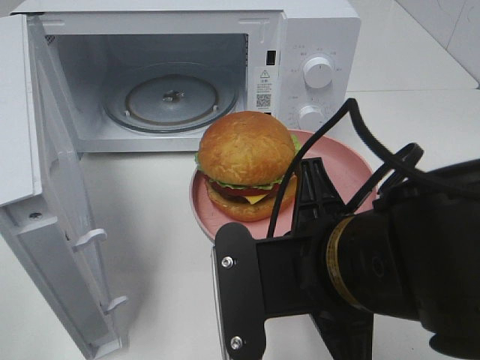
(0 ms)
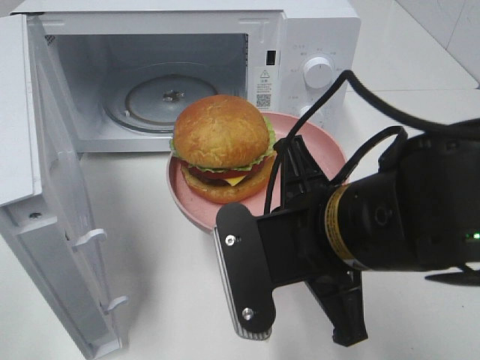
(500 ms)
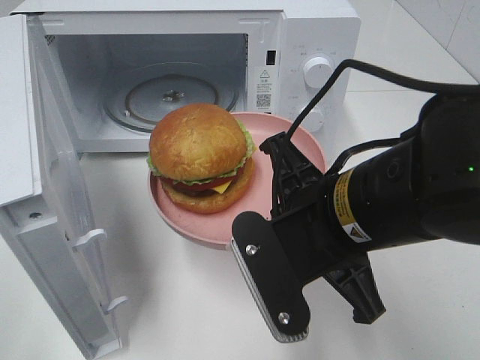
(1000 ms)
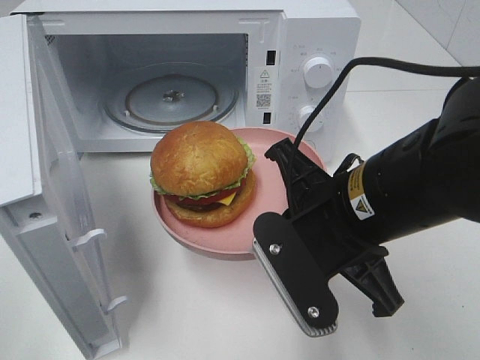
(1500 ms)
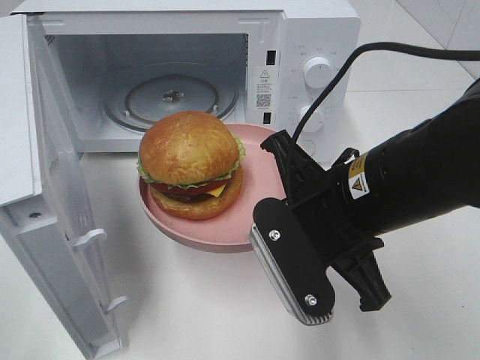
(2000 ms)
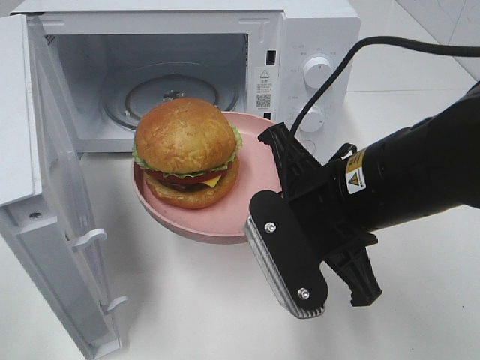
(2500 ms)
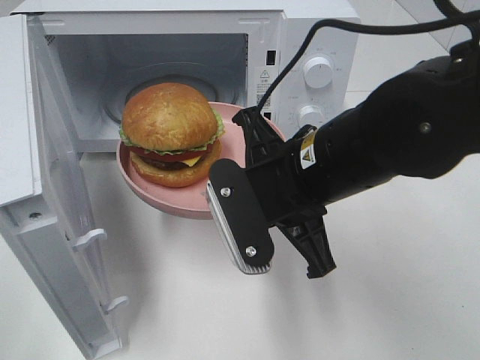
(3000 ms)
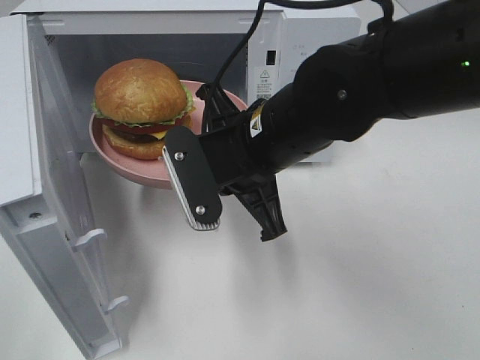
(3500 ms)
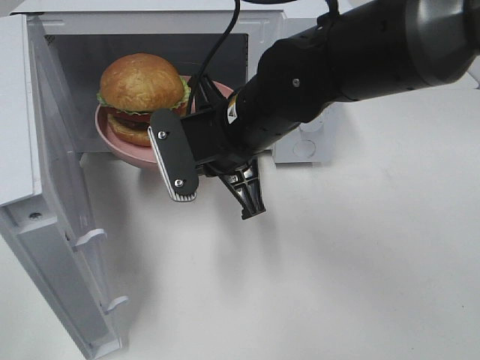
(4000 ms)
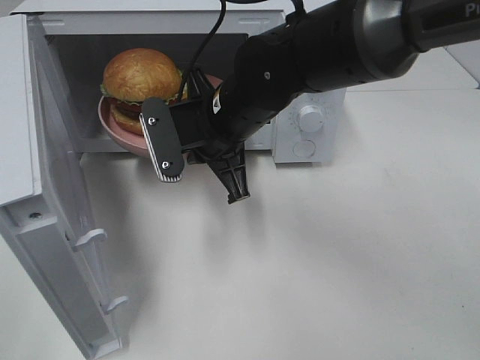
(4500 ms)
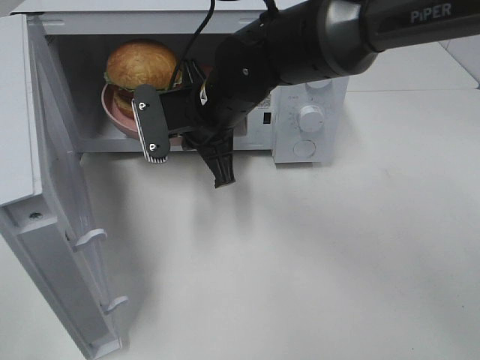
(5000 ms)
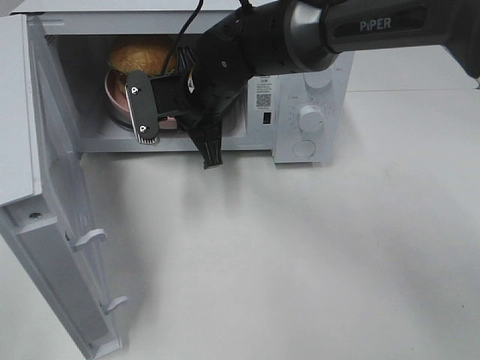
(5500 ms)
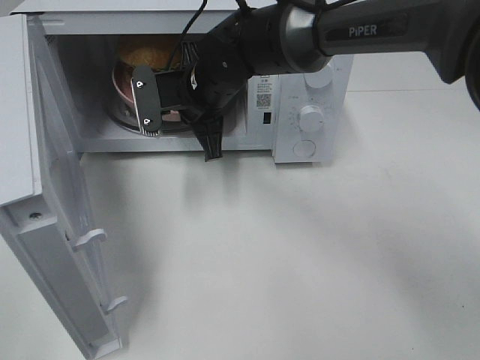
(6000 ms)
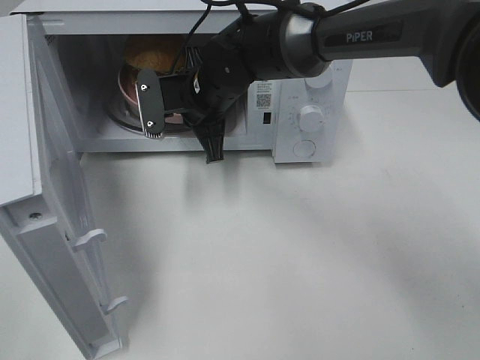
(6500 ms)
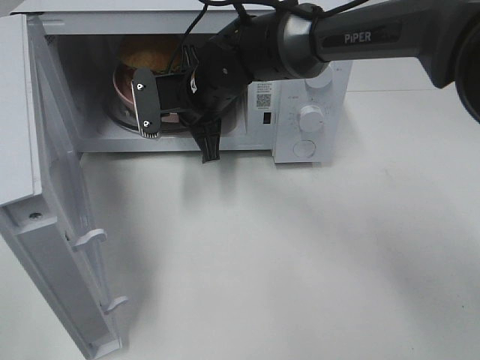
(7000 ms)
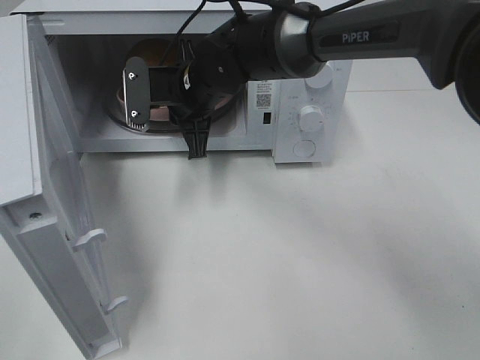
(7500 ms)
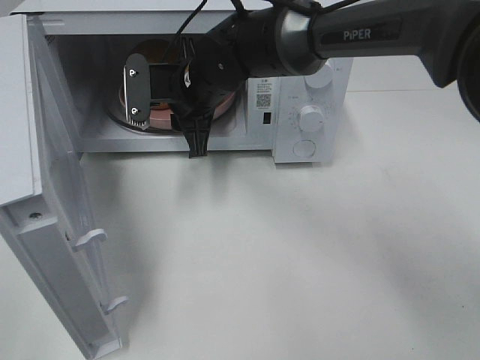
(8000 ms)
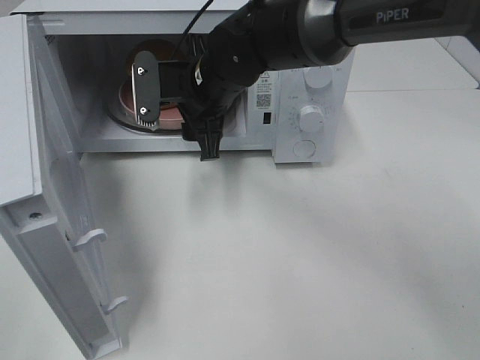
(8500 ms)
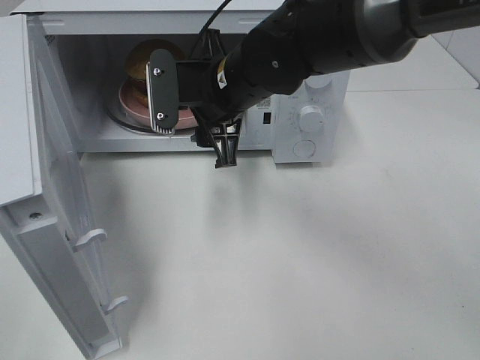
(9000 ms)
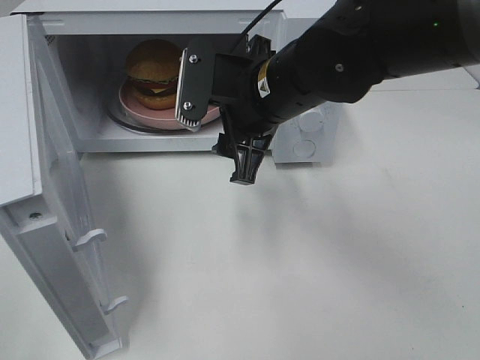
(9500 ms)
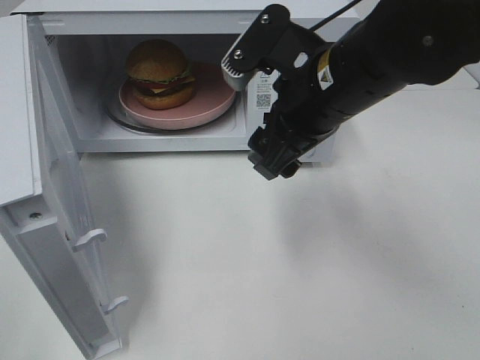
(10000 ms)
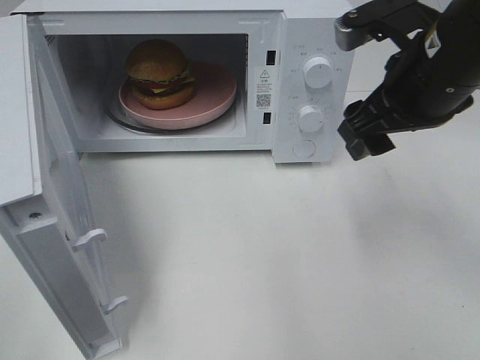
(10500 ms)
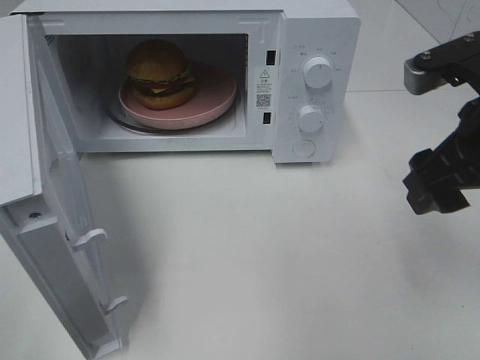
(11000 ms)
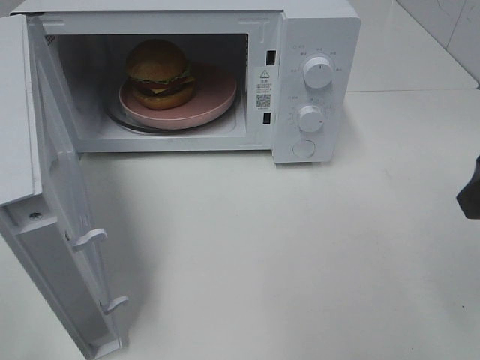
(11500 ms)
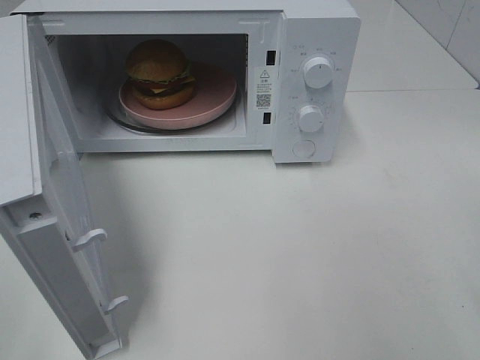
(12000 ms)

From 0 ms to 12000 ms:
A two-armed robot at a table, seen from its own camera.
Task of the whole recording: Heat the burger.
Step, from 0 ms to 7500 ms: Right hand: place the plate in the microwave.
From 0 ms to 2000 ms: The right gripper goes roughly 5 cm forward.
From 2000 ms to 4000 ms: The right gripper travels forward and to the left by about 15 cm.
From 4000 ms to 6000 ms: The right gripper heads forward, covering roughly 10 cm.
From 6000 ms to 8000 ms: The right gripper opens up.
From 8000 ms to 10000 ms: The right gripper moves to the right, backward and upward, approximately 20 cm, and opens.
From 10000 ms to 12000 ms: The right gripper moves to the right and backward, approximately 25 cm.

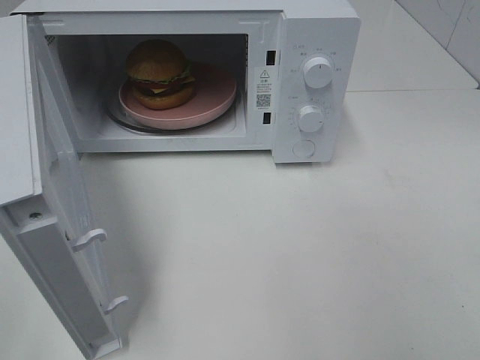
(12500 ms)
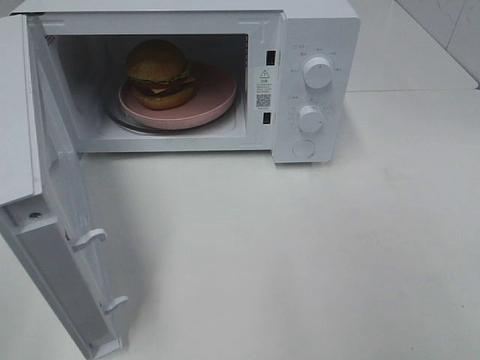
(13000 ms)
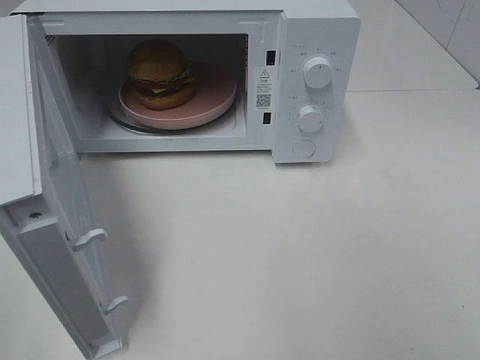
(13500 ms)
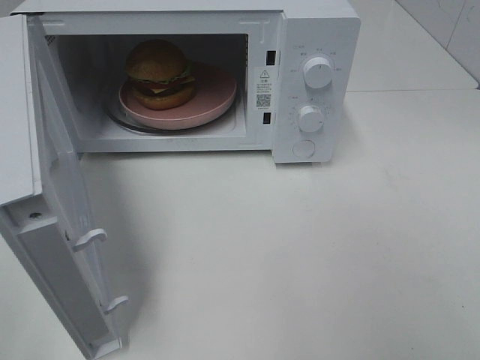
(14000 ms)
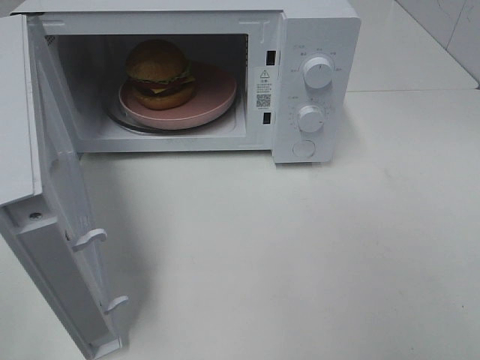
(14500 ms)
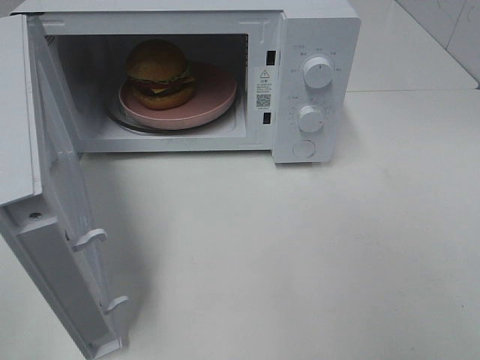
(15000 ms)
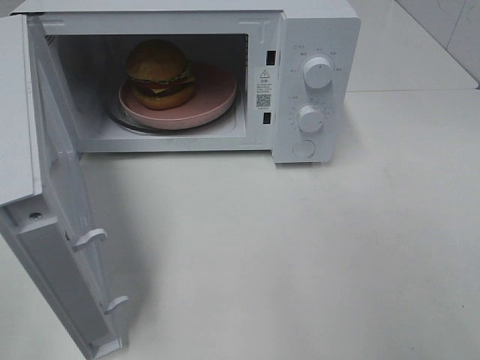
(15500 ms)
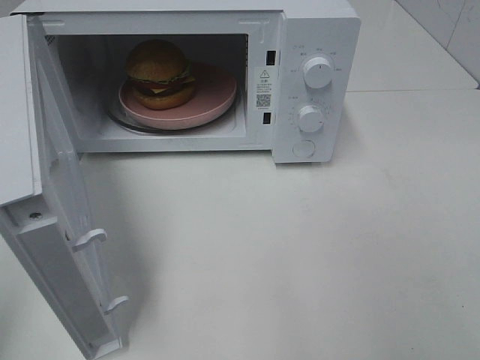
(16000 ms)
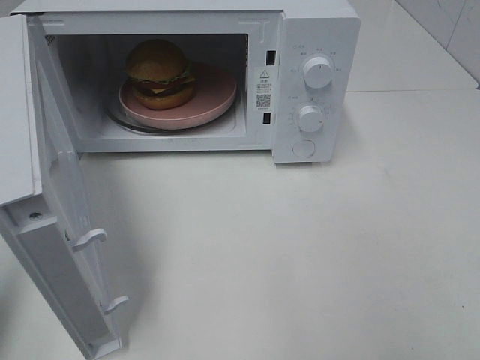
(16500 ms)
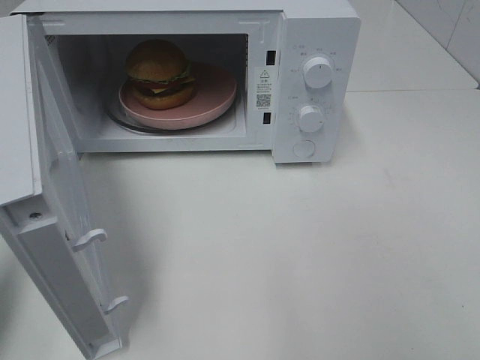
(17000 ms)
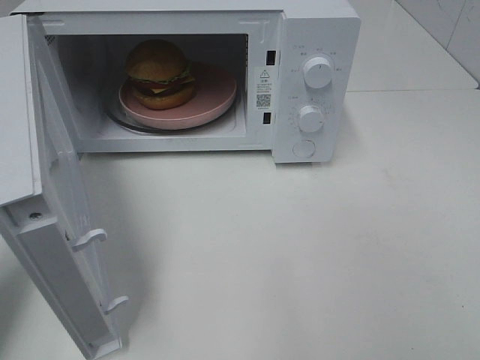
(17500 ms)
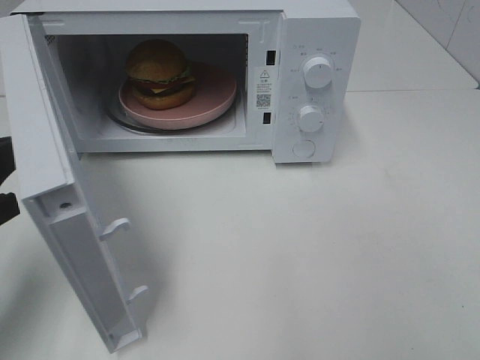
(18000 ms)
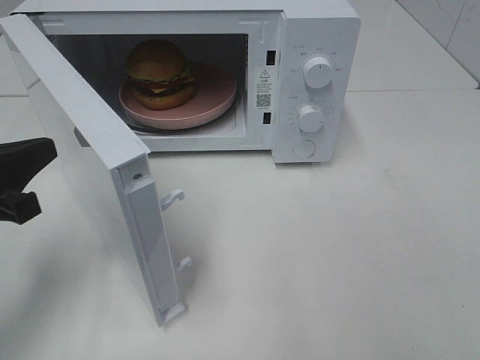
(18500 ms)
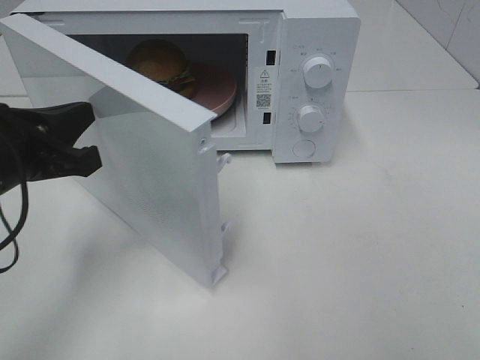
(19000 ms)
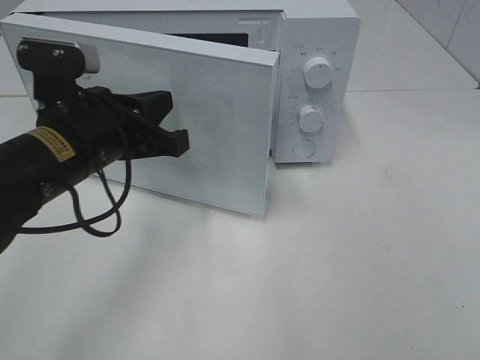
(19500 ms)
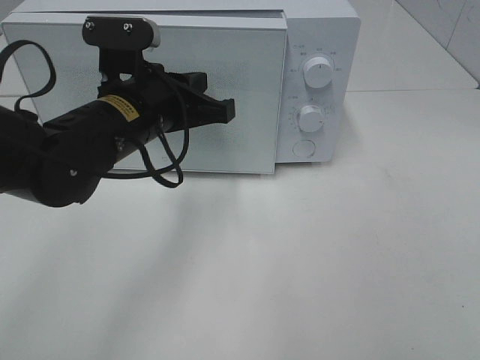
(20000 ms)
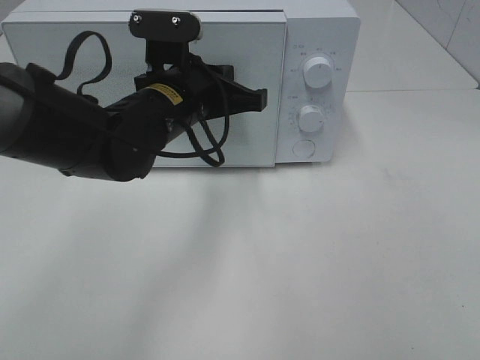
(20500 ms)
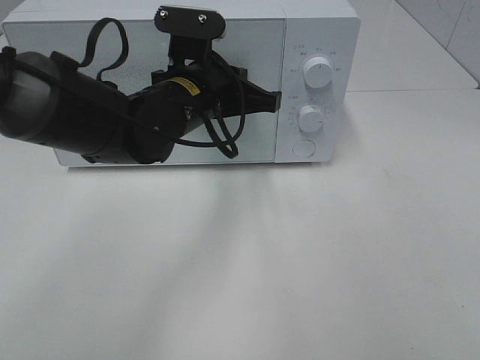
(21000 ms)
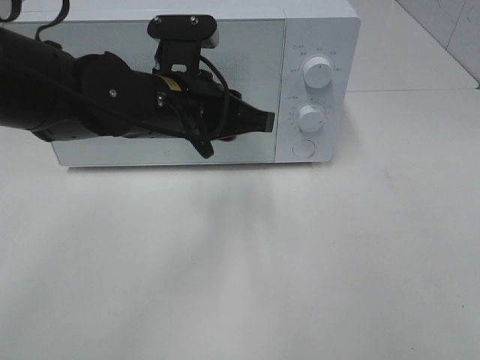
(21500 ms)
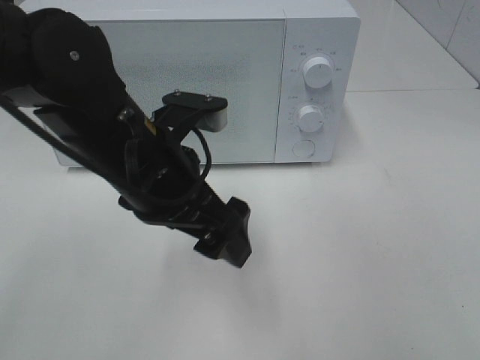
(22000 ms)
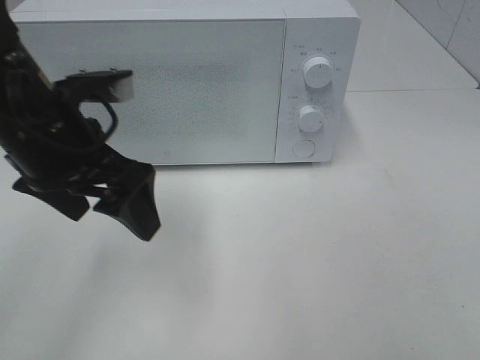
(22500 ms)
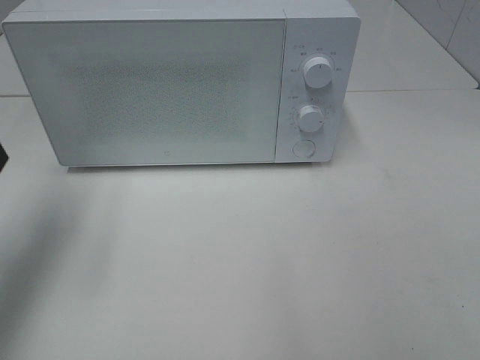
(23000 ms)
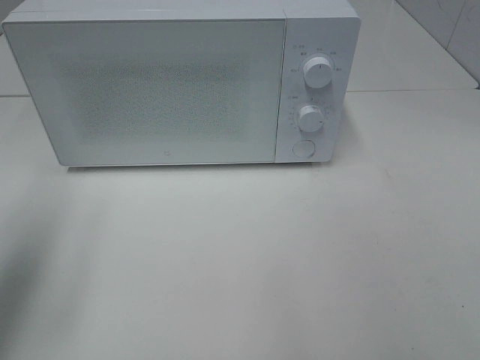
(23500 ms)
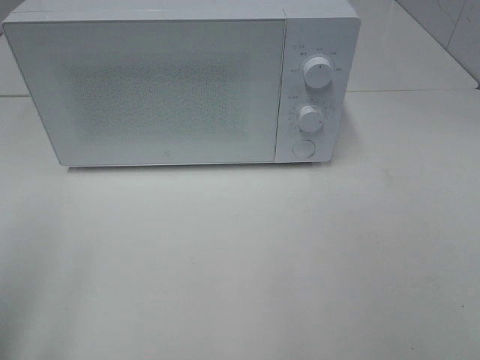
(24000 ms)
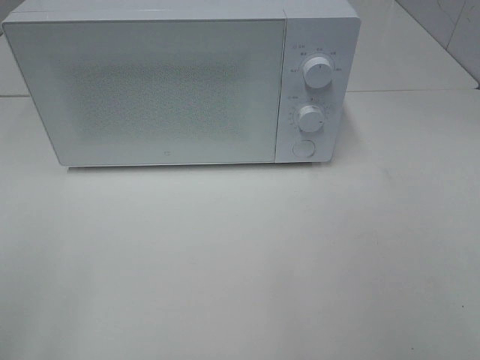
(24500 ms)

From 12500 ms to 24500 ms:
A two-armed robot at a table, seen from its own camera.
Task of the whole recording: Heat the burger.
Step, from 12500 ms to 21000 ms: Left hand: close the microwave door.
From 14500 ms to 16500 ms: The left gripper is displaced forward by about 10 cm, and closes up.
From 16500 ms to 18500 ms: The left gripper is displaced forward, downward and to the right by some 15 cm.
From 18500 ms to 20500 ms: The left gripper heads to the right and forward, covering approximately 25 cm.
From 20500 ms to 22500 ms: The left gripper travels to the left, backward and upward by approximately 15 cm, and opens.
From 22500 ms to 24500 ms: The left gripper is displaced backward and to the left by about 30 cm.

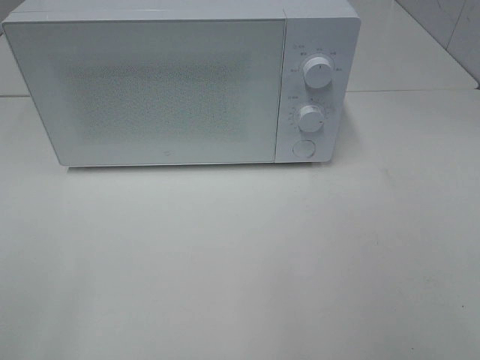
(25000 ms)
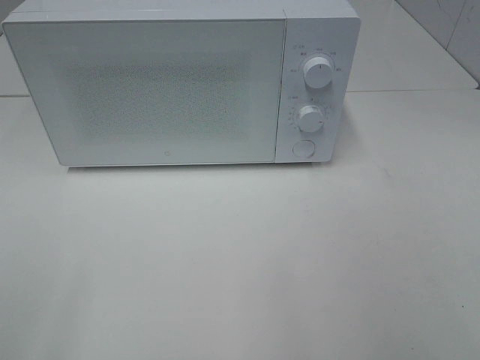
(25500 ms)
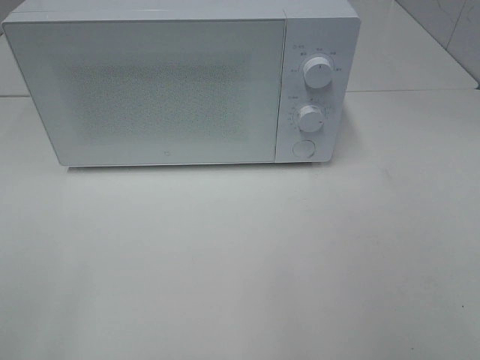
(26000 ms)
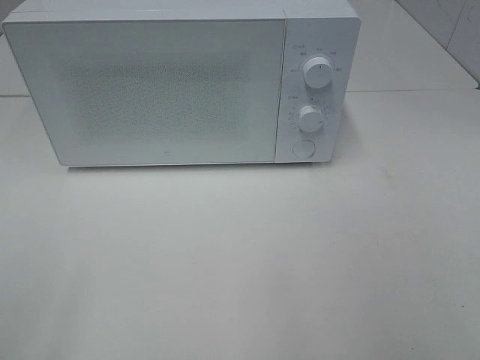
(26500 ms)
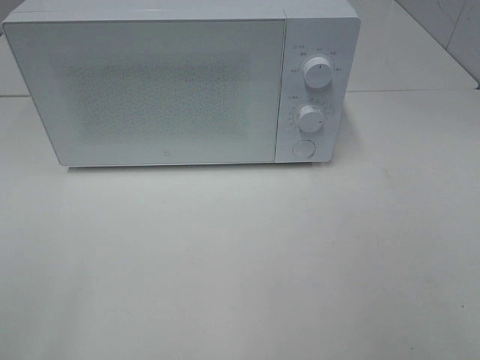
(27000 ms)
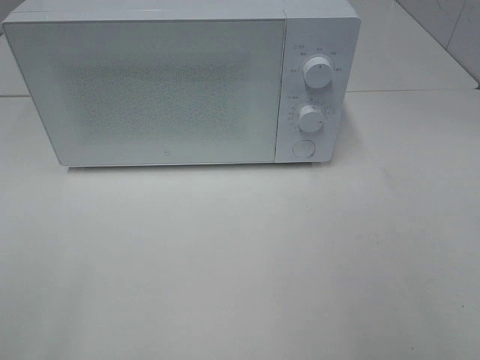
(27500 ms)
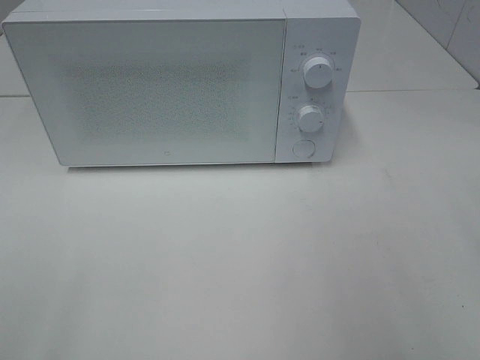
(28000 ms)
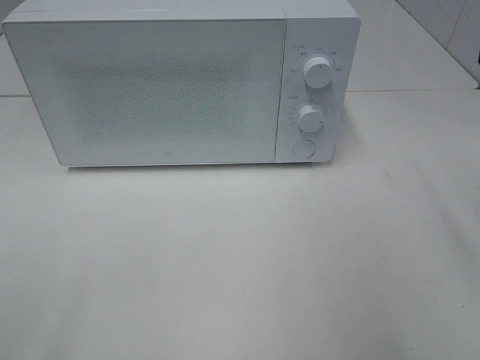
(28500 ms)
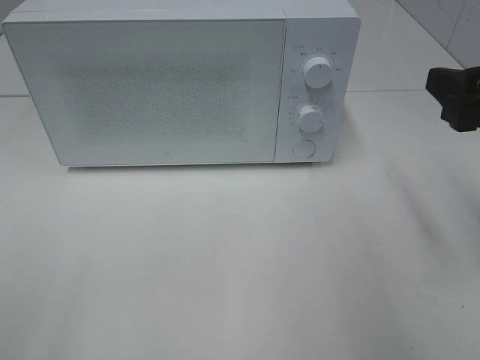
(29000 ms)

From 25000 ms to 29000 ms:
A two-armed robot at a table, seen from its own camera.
Task of the whole recording: Heat the burger.
From 25000 ms to 27000 ms: Both grippers stay put.
From 27000 ms to 29000 ms: The right gripper shifts roughly 20 cm forward.
